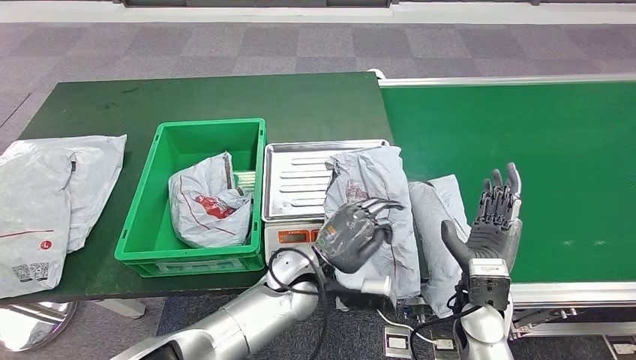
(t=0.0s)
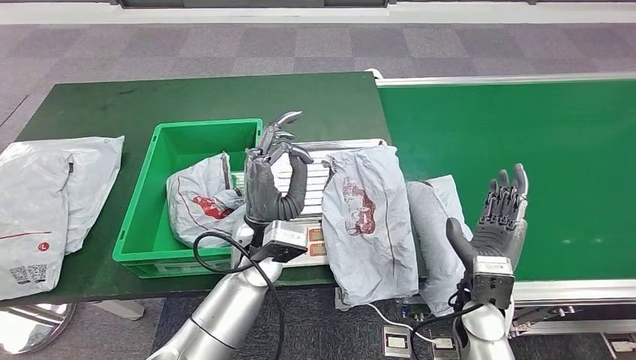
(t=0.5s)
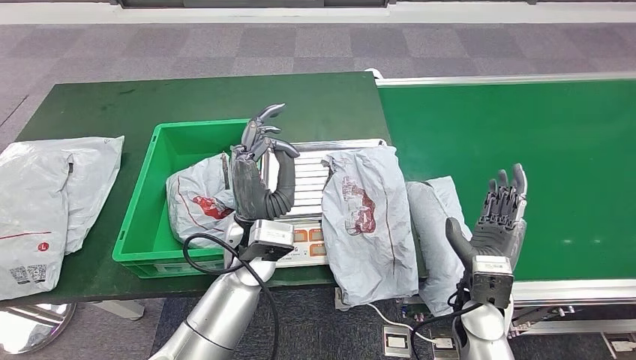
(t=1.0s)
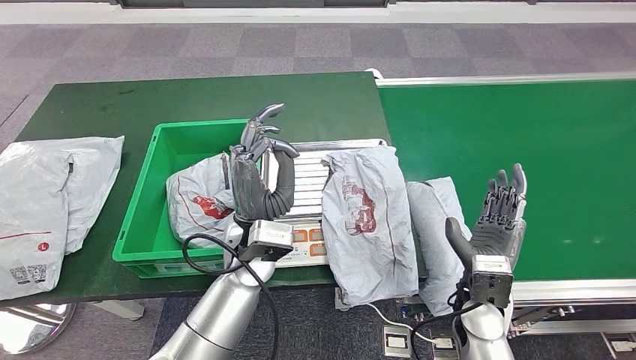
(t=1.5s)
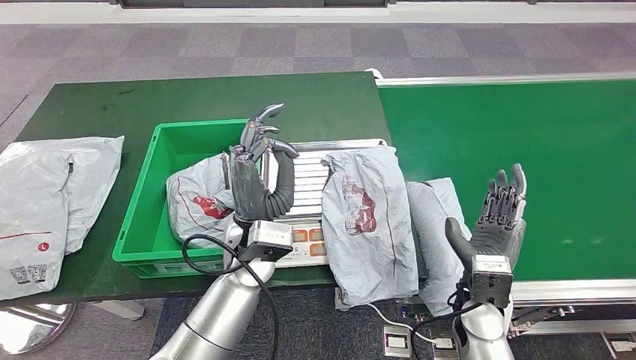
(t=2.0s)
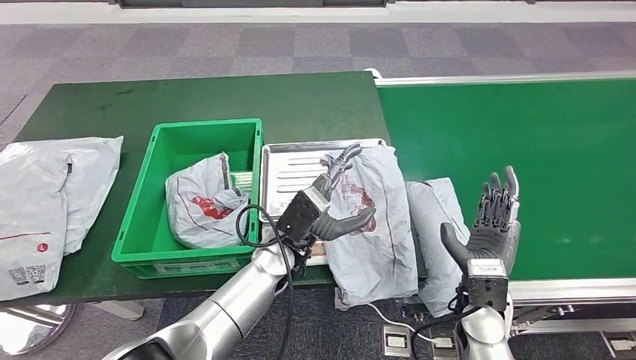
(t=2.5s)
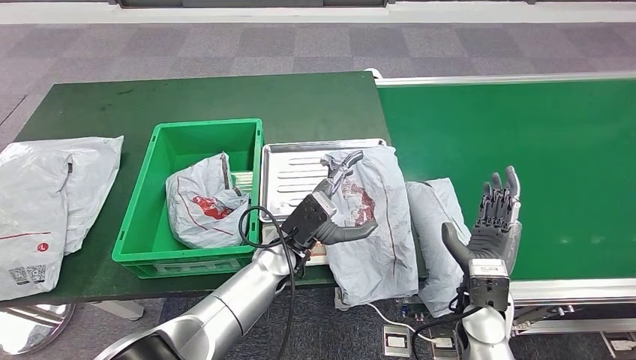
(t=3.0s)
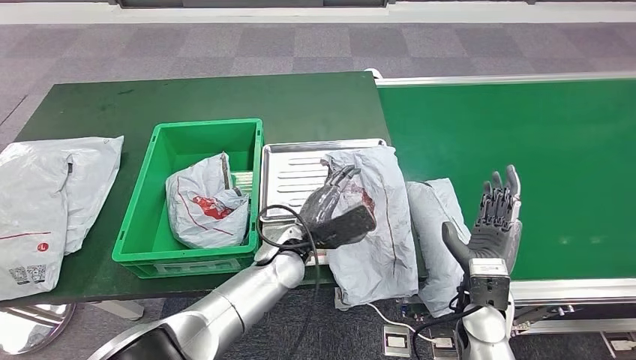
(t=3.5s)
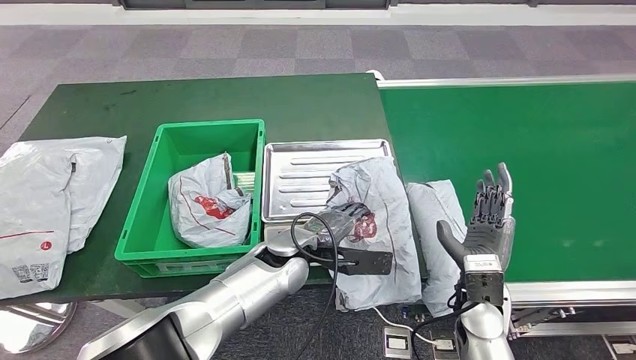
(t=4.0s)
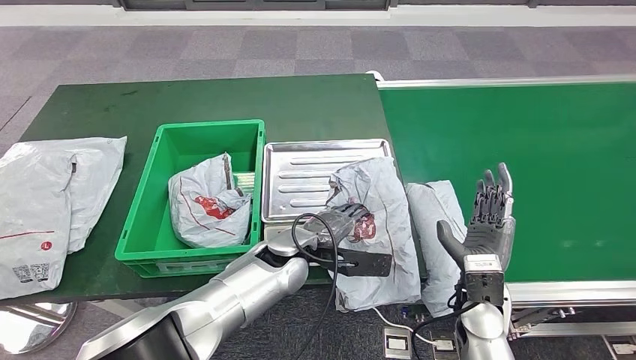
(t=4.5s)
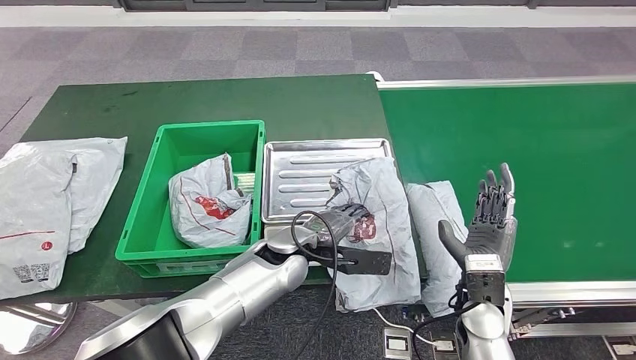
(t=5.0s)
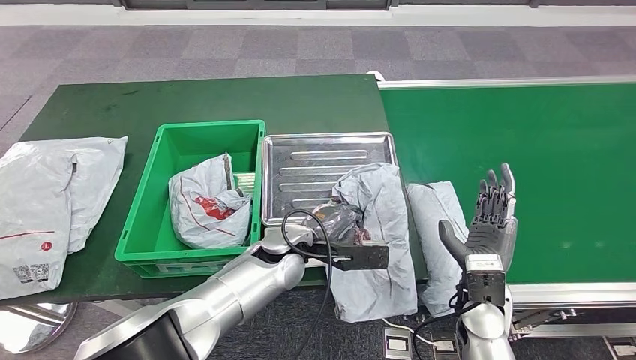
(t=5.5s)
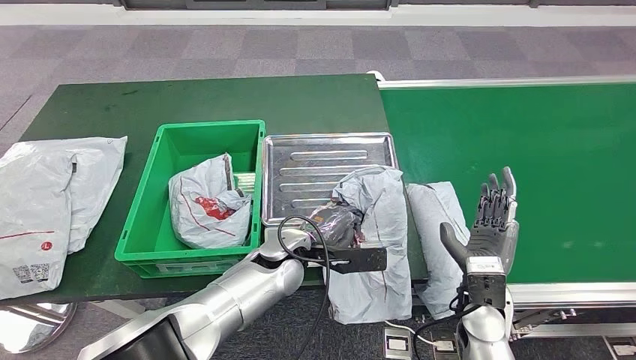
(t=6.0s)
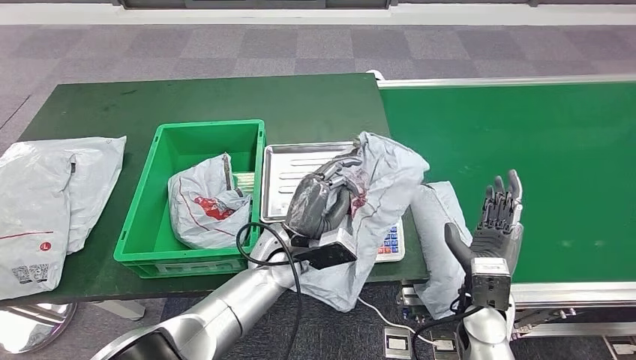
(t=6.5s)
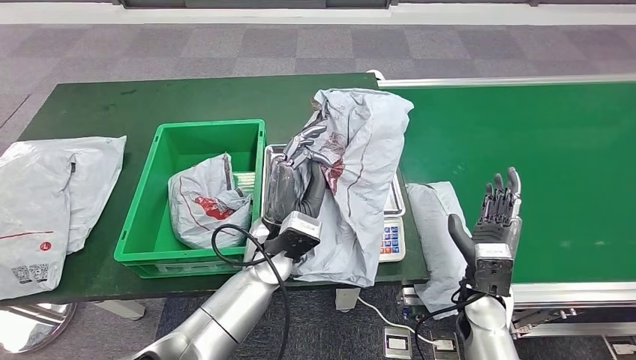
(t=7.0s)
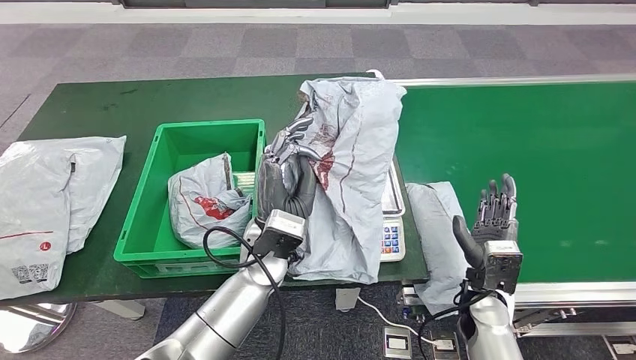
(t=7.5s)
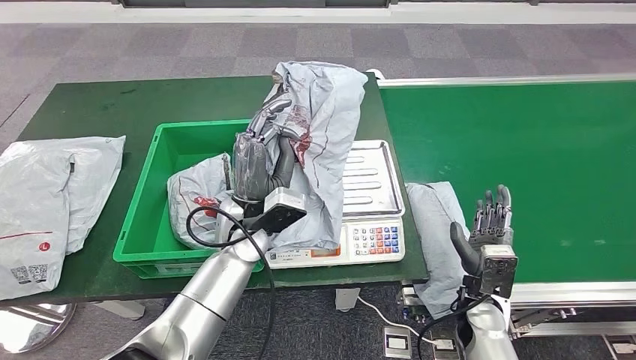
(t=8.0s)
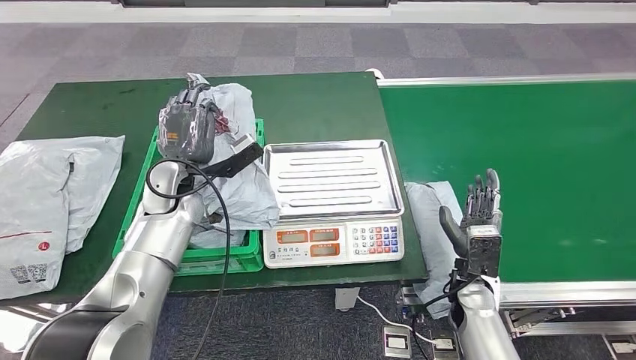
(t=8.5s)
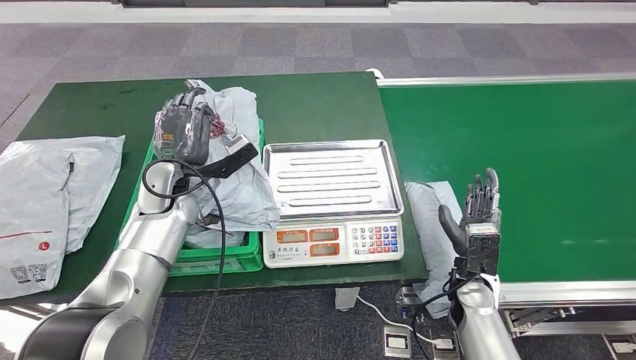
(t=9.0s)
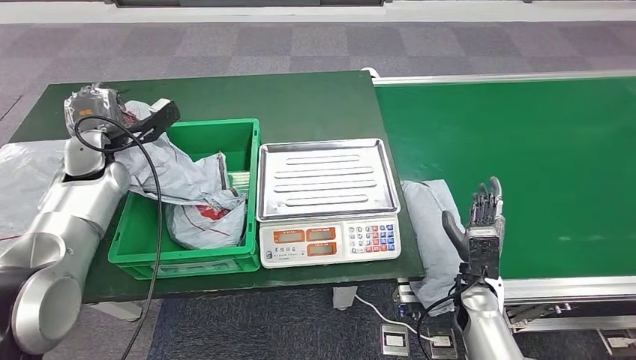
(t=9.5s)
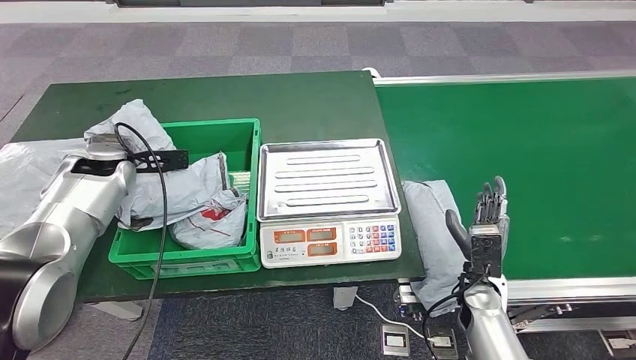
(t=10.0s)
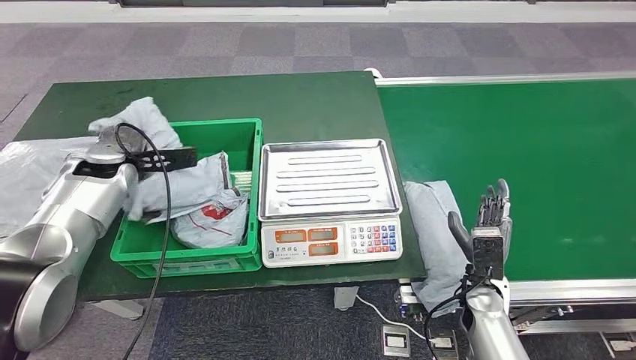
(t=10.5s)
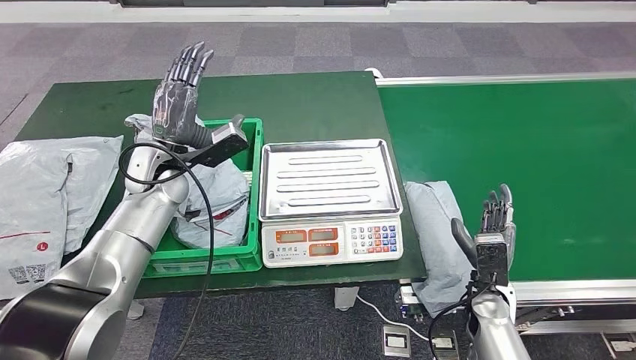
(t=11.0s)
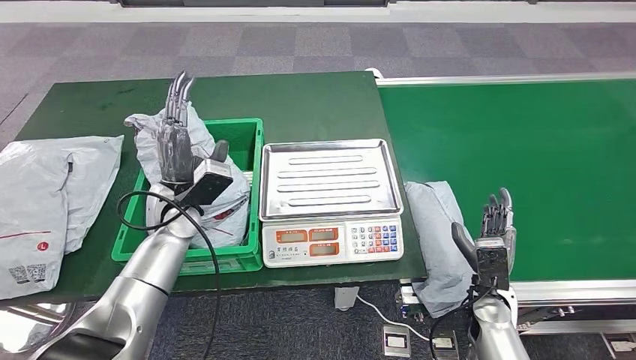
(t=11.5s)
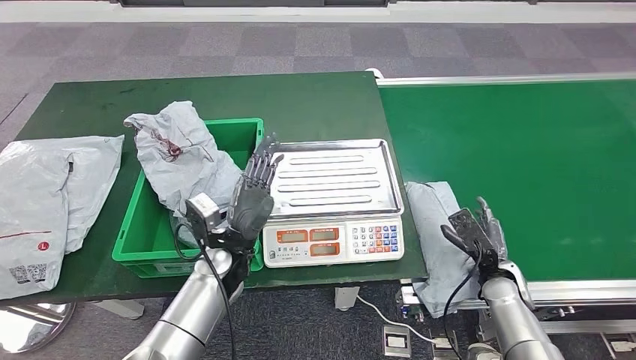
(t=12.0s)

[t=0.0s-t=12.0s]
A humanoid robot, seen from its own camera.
Step, t=5.0s to t=7.5s: Pick up the parcel from the inbound machine.
t=0.0s to t=2.0s: The left hand moves upward and to the left, approximately 10 cm.
t=2.0s to t=4.0s: The left hand is displaced downward by about 10 cm.
t=4.0s to t=6.0s: The hands move only a little.

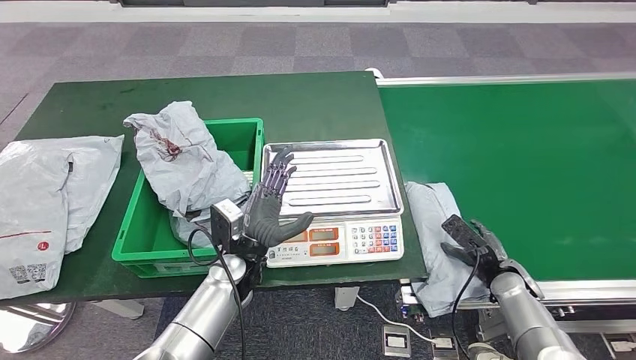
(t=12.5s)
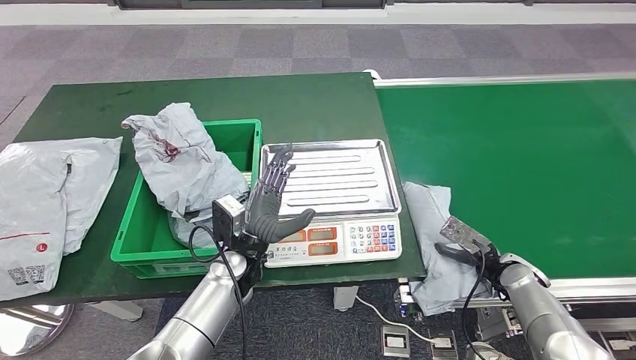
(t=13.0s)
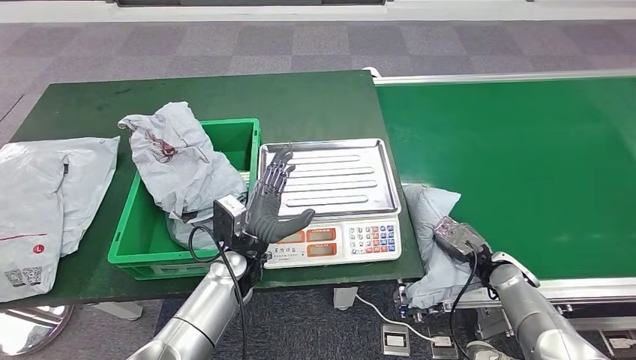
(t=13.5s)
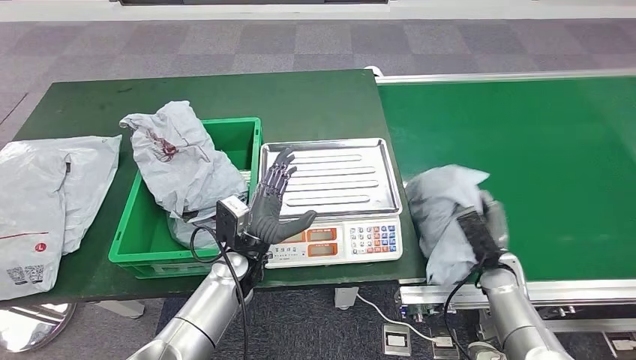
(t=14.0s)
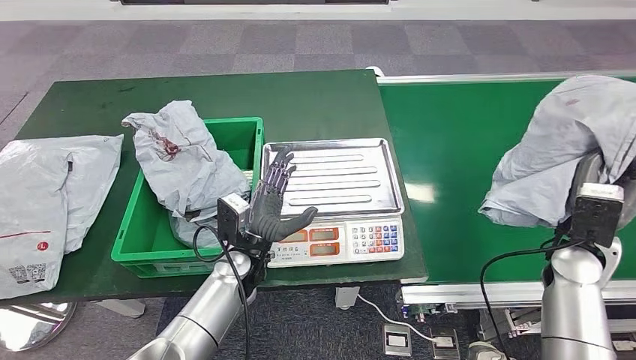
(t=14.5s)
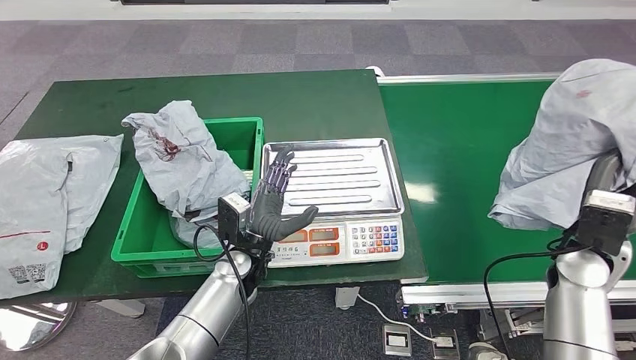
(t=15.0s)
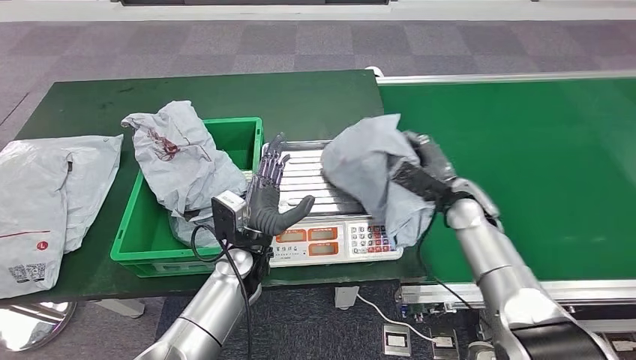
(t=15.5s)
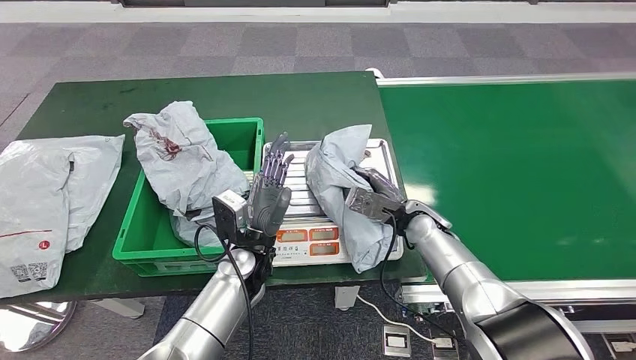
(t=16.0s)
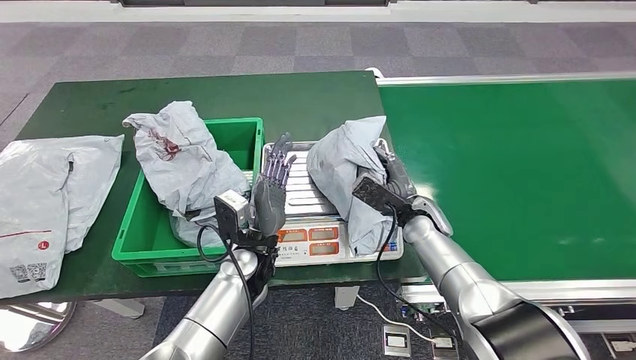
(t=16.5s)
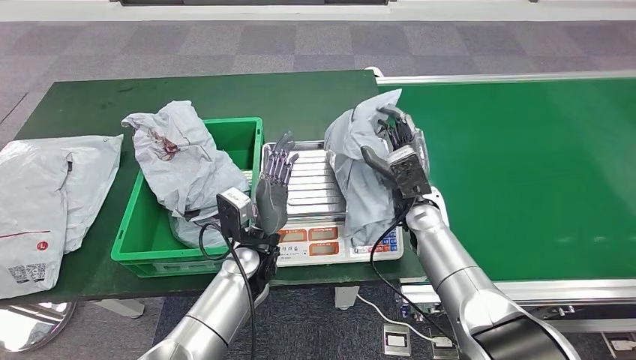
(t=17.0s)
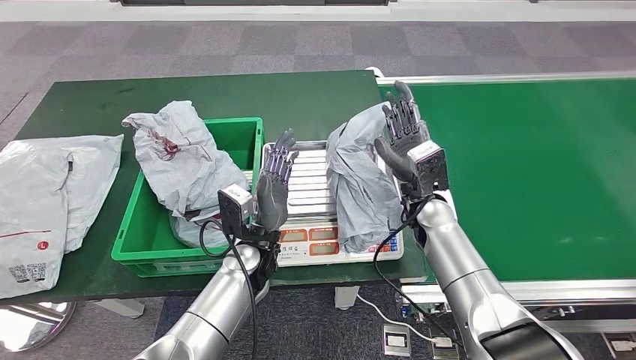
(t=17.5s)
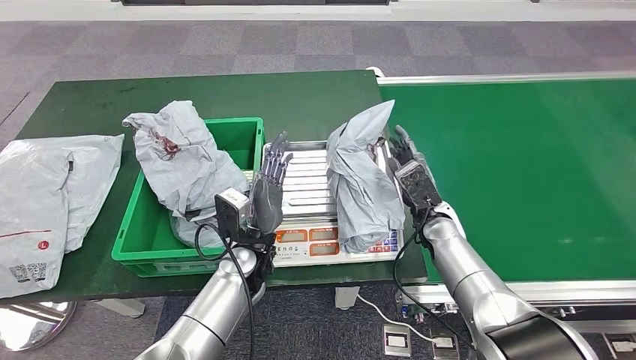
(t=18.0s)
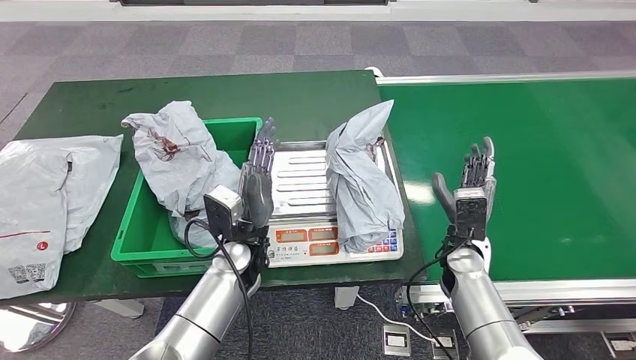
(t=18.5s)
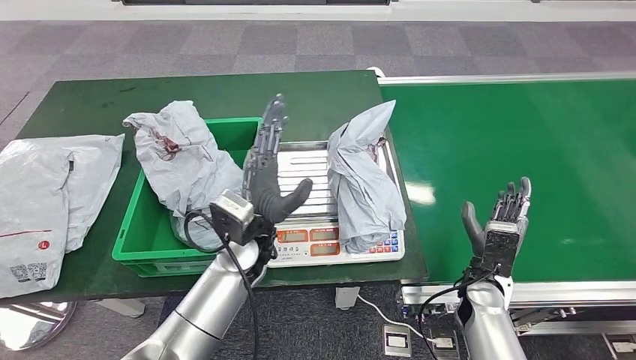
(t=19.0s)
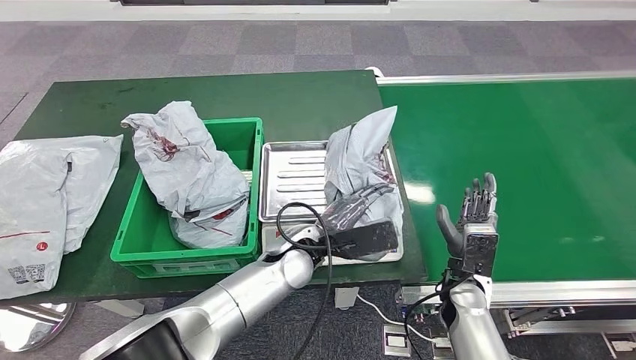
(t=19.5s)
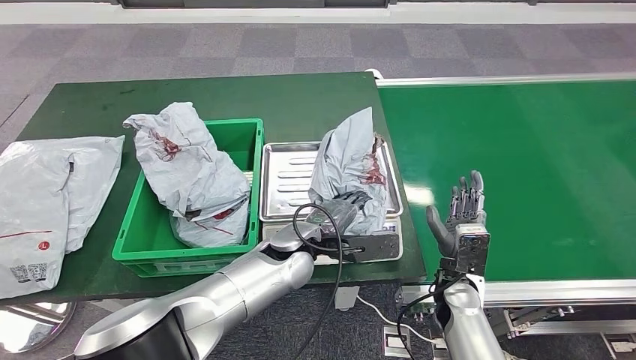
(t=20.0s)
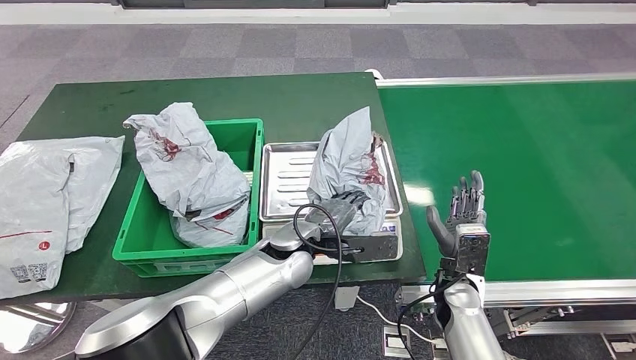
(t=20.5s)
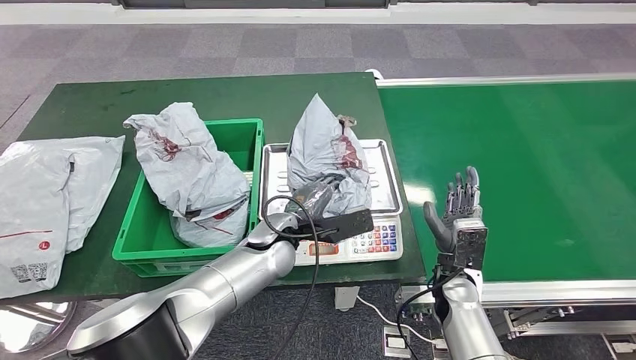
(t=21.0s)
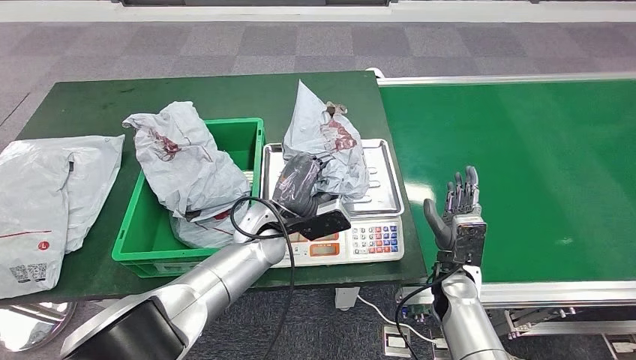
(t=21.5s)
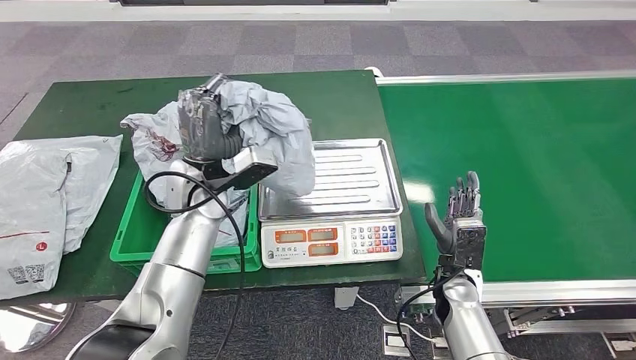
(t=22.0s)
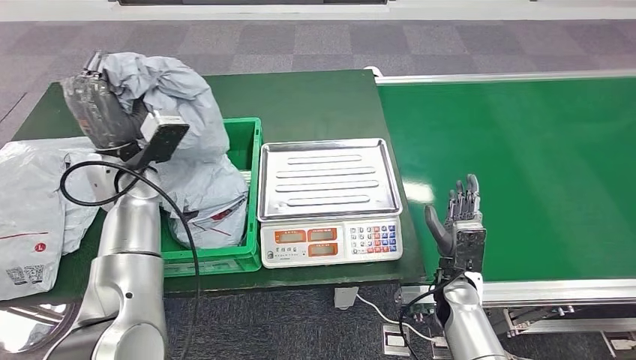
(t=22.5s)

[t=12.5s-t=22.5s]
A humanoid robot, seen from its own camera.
Step, t=13.5s to t=15.0s: Pick up the parcel from the conveyor belt.
Step, t=15.5s to t=17.5s: Place the parcel onto the inbound machine.
Step, t=18.5s to t=22.0s: Pick up the parcel from the inbound machine.
t=16.5s to t=18.5s: The right hand moves to the right and backward, some 10 cm.
